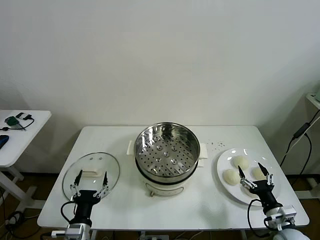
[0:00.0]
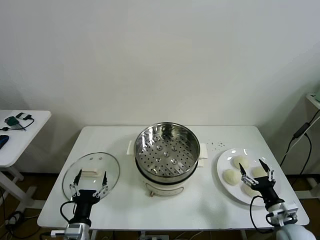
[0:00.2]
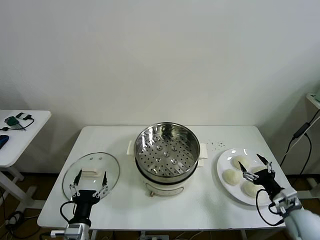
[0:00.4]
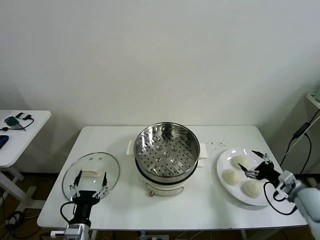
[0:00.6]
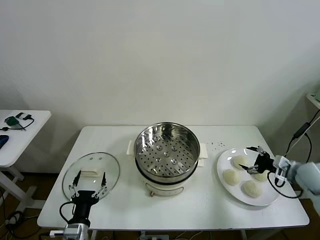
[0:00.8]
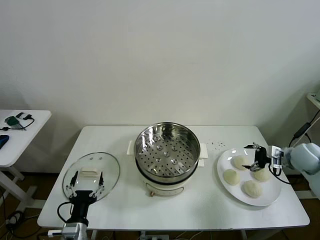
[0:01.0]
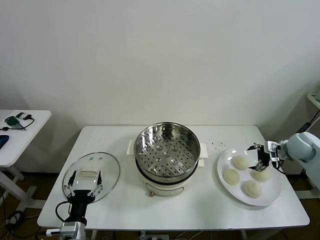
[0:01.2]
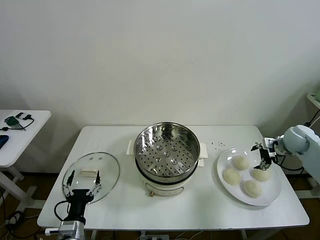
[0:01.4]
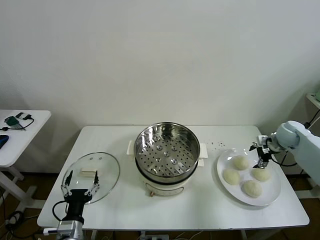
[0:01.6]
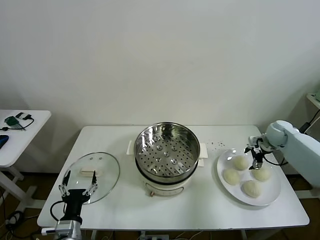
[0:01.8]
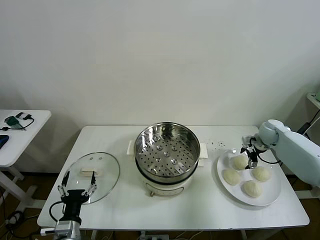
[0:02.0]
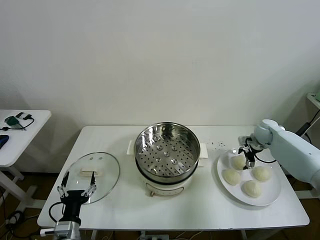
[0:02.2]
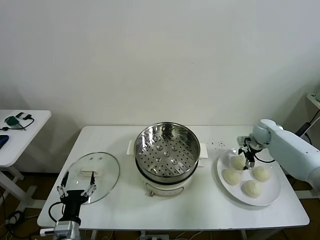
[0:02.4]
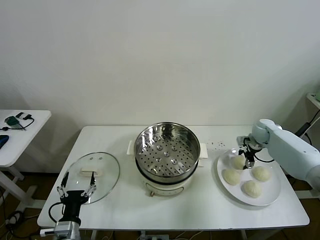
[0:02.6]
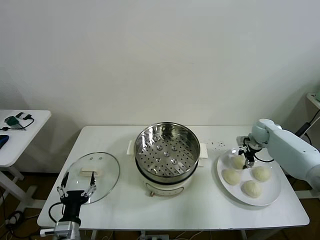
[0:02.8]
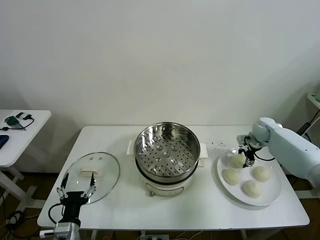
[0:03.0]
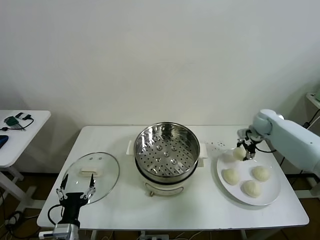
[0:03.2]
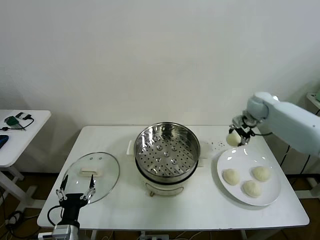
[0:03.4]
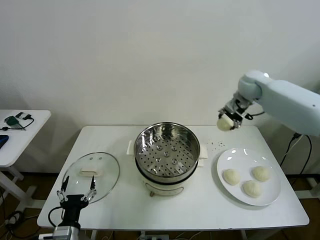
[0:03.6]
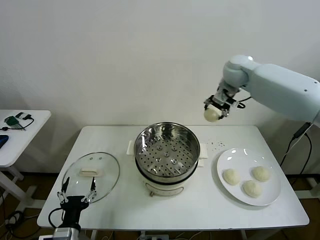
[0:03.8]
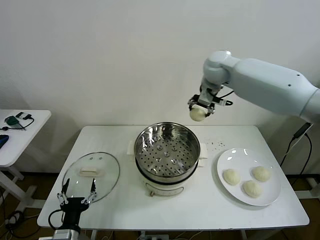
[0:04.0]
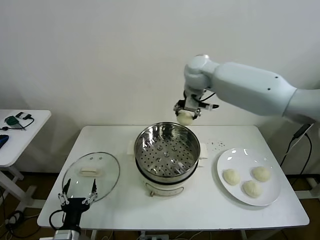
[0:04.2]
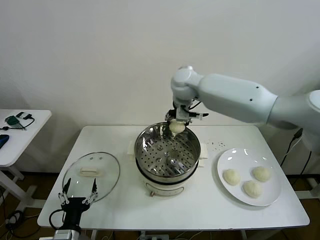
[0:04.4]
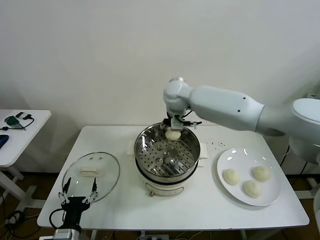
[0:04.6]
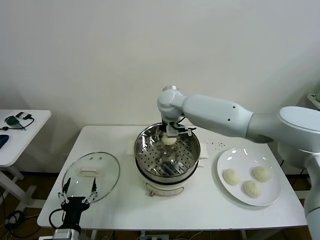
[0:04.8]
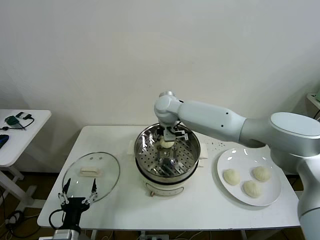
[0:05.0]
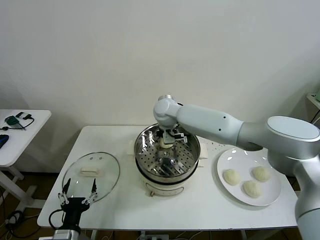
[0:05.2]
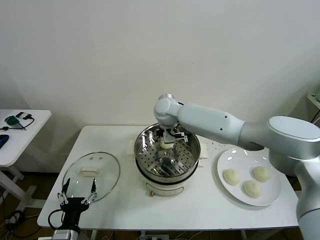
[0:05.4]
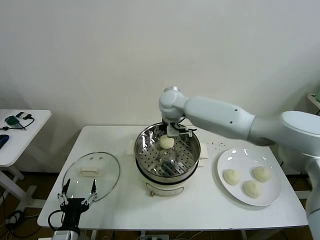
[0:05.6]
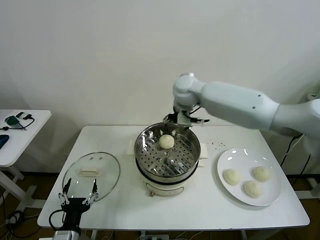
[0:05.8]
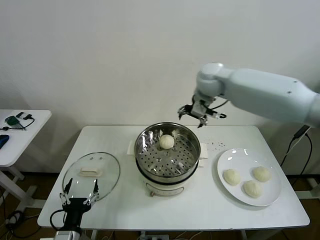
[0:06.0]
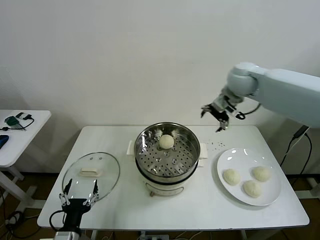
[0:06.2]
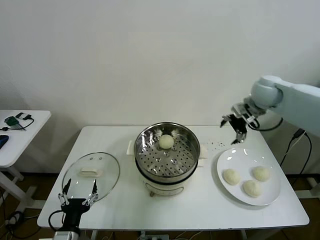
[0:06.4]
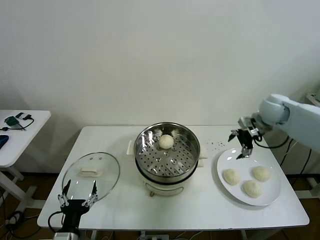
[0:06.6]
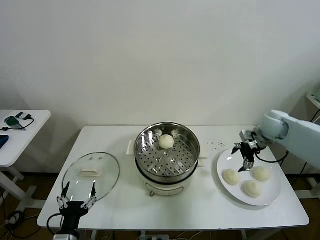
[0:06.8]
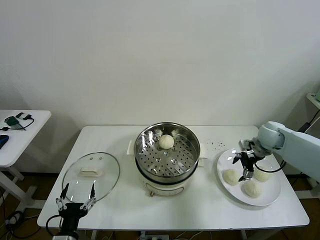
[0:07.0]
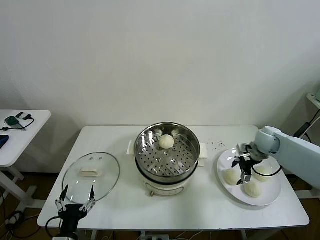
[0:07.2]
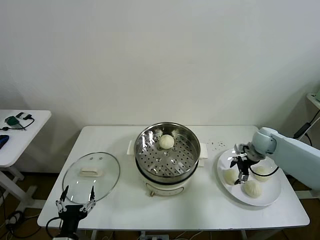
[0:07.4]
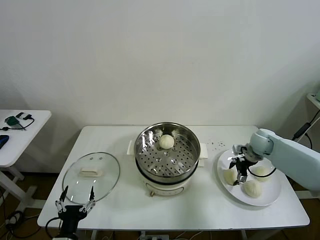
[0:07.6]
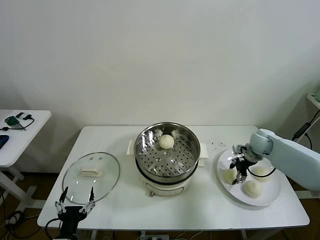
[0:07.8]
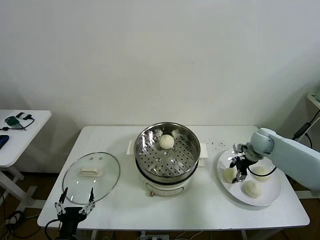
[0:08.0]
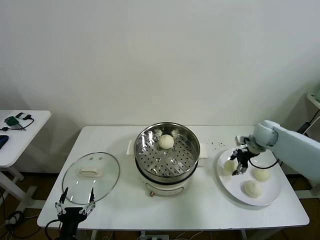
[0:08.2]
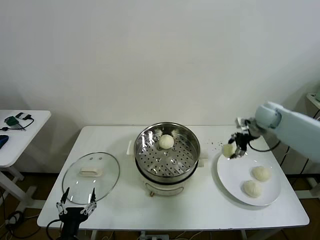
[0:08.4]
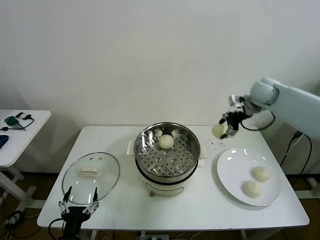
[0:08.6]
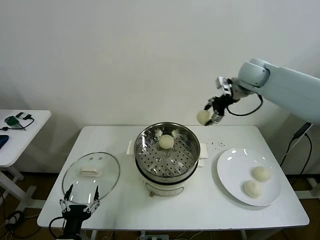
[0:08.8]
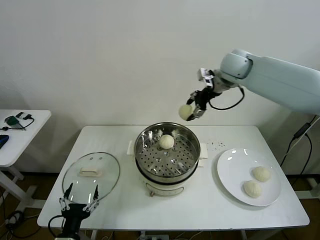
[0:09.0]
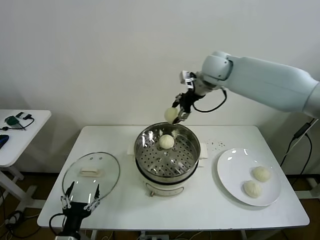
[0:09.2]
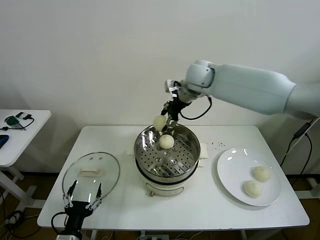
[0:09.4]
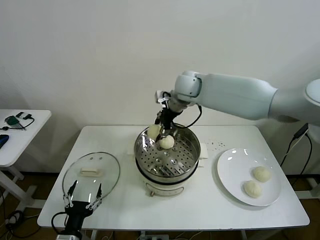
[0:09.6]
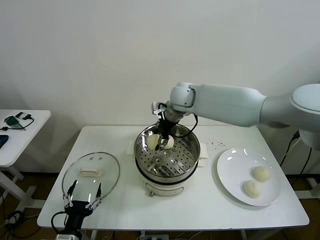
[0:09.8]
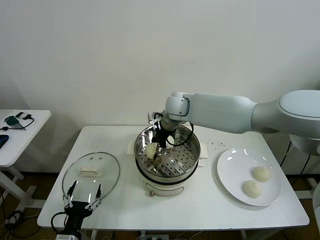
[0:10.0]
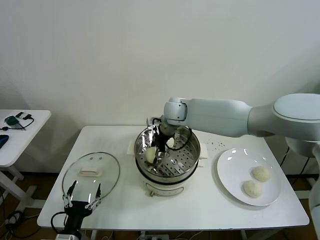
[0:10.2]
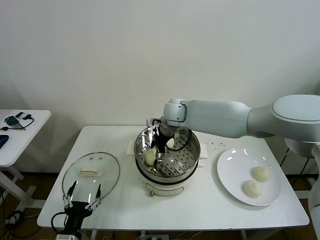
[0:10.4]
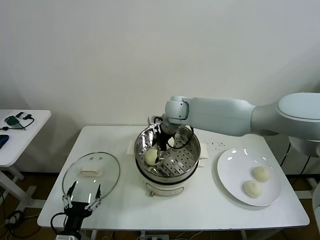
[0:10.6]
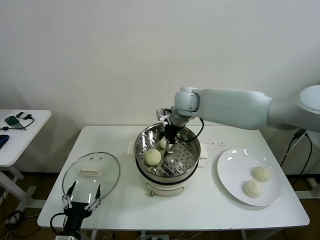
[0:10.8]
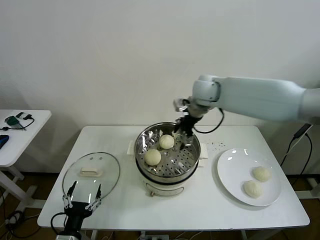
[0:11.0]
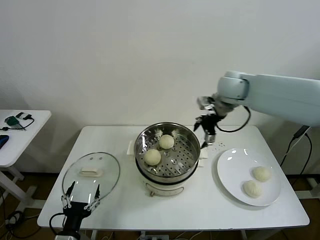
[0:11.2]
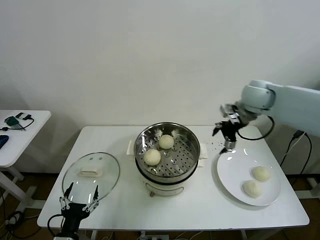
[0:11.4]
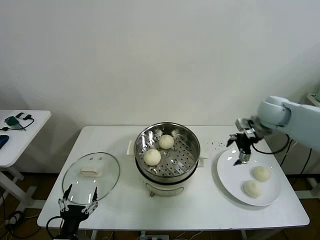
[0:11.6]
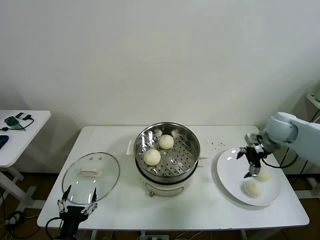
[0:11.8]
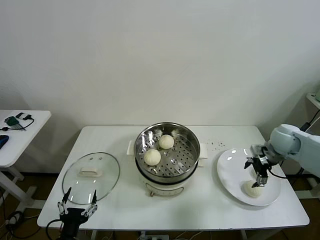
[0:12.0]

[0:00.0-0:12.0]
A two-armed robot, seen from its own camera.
Task of the whole recording: take steamed baozi put them in steamer then cover it.
Step, 0.0 to 2.6 s: Grasp the baozi in the plate with right gripper.
Step, 2.8 to 5.2 s: Place the baozi on the steamer with right gripper.
Step, 5.4 to 8.0 s: Grasp the baozi in the plate with right gripper.
Step, 8.2 to 10.6 s: Place the baozi on the steamer with right gripper.
1.6 to 3.0 s: The right gripper shifts by some 5 cm, and closes its fingers.
3.0 to 4.4 s: The right gripper travels to the left by approximately 35 cm.
4.4 to 6.0 s: The right gripper moves to the right, approximately 20 cm, and opens.
6.0 to 7.6 s: The right gripper moves downward and to the right, approximately 30 cm, and closes.
7.6 to 9.0 s: The right gripper heads upward and to the left, covering roughly 35 cm.
9.0 to 10.4 s: The right gripper travels downward and to the left by approximately 20 cm, and opens up.
10.4 to 12.0 s: The right gripper travels to the right by approximately 40 cm.

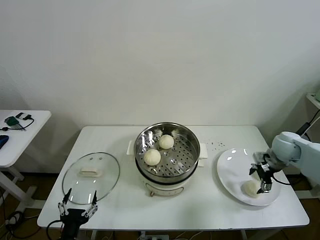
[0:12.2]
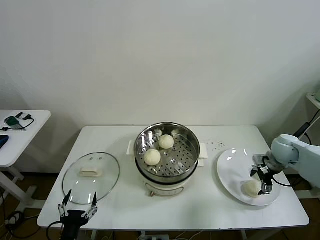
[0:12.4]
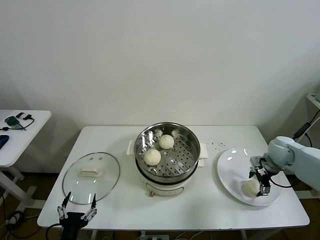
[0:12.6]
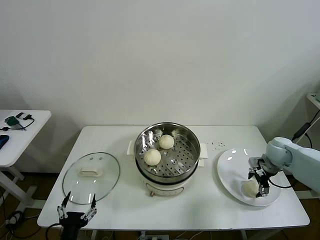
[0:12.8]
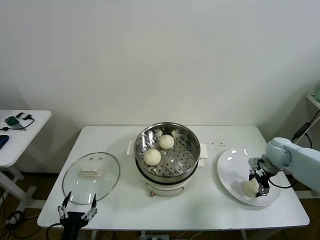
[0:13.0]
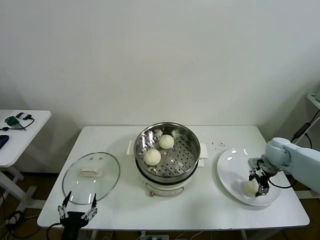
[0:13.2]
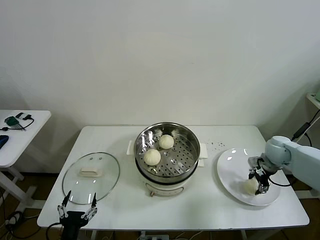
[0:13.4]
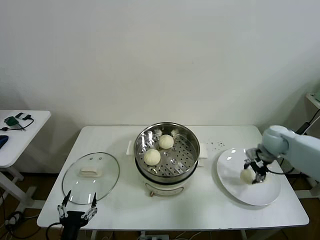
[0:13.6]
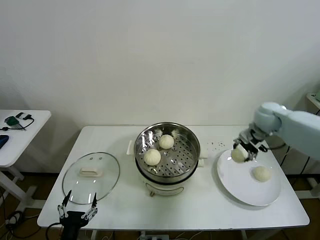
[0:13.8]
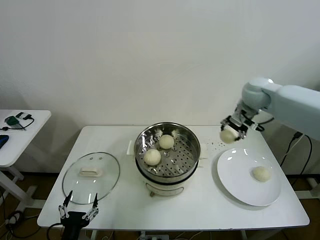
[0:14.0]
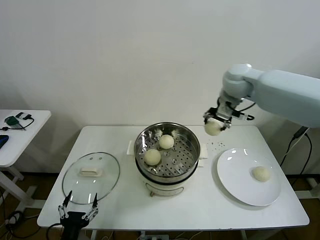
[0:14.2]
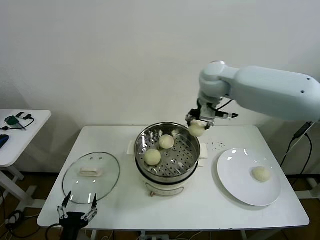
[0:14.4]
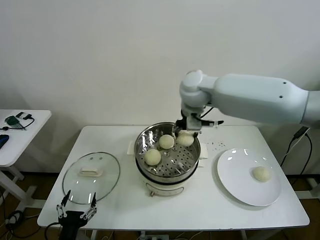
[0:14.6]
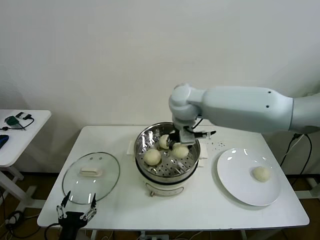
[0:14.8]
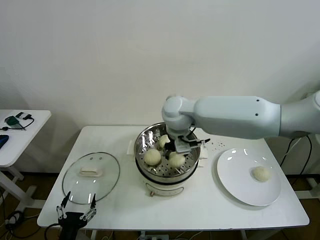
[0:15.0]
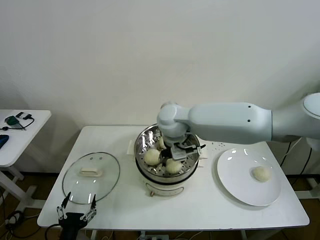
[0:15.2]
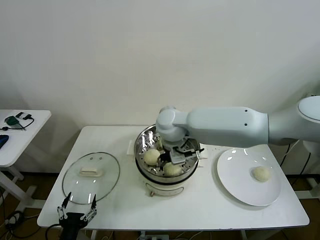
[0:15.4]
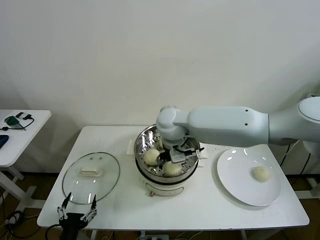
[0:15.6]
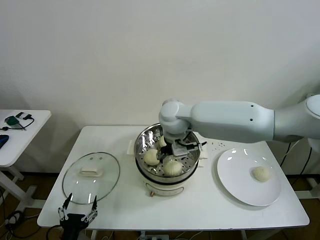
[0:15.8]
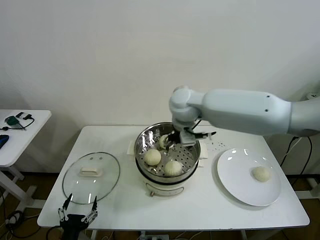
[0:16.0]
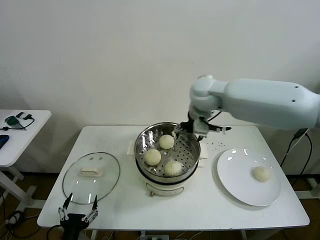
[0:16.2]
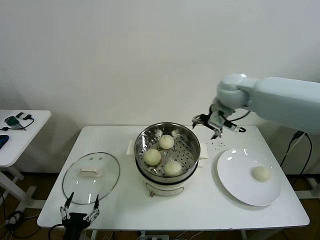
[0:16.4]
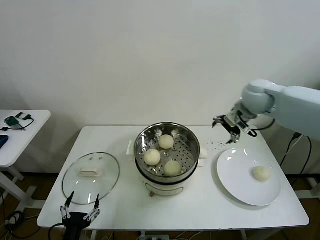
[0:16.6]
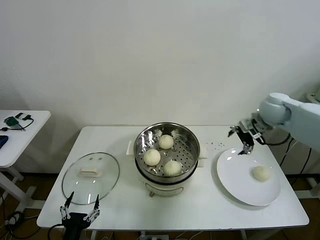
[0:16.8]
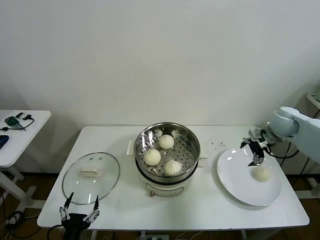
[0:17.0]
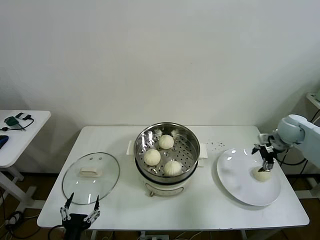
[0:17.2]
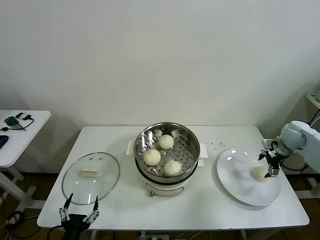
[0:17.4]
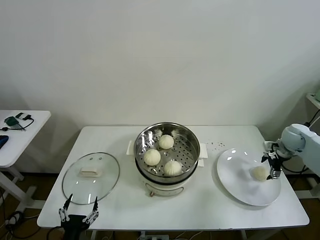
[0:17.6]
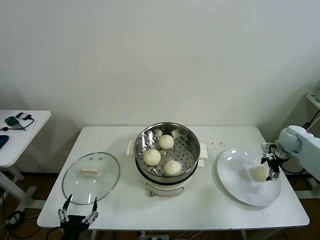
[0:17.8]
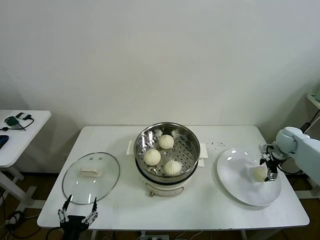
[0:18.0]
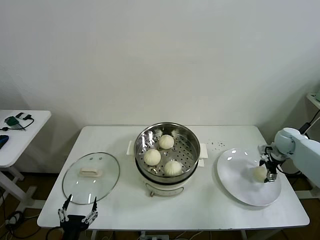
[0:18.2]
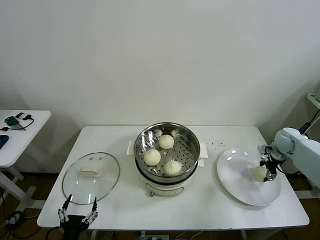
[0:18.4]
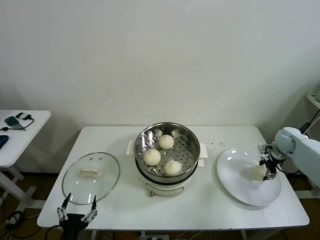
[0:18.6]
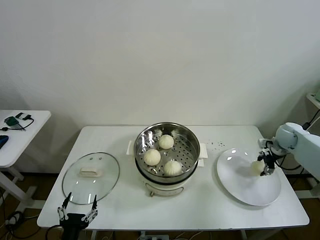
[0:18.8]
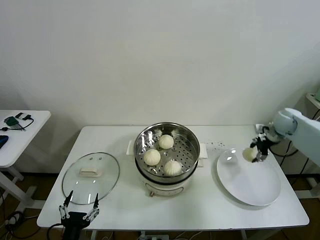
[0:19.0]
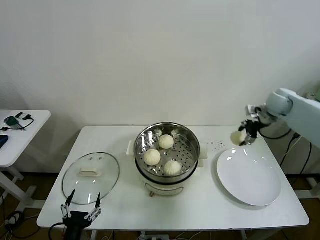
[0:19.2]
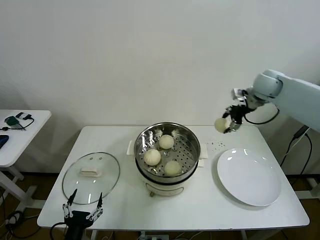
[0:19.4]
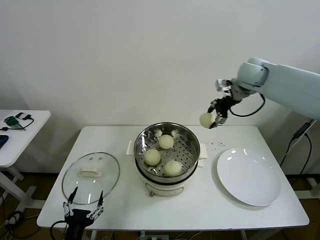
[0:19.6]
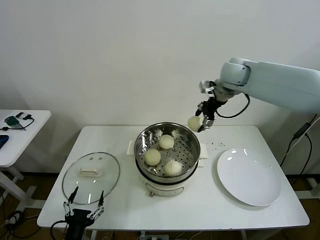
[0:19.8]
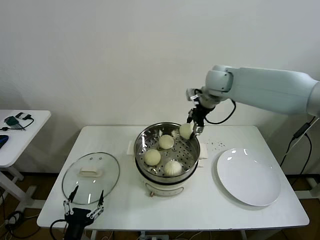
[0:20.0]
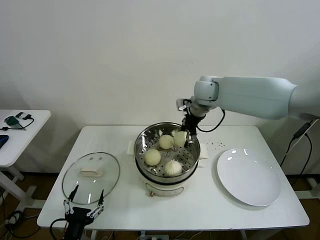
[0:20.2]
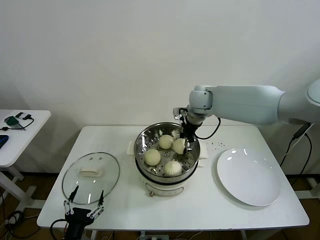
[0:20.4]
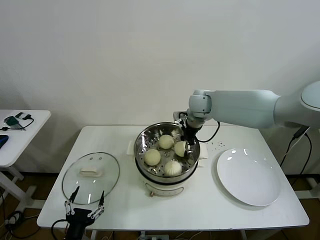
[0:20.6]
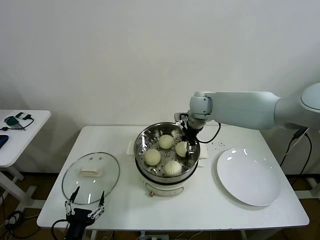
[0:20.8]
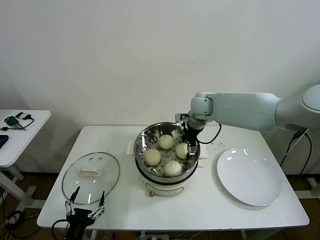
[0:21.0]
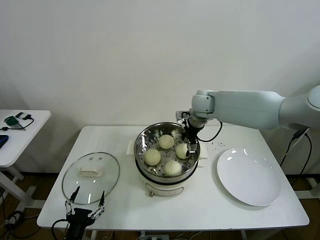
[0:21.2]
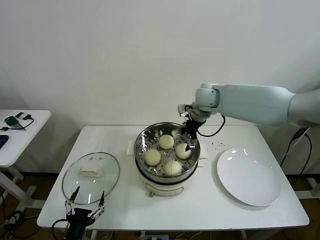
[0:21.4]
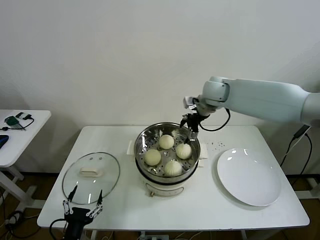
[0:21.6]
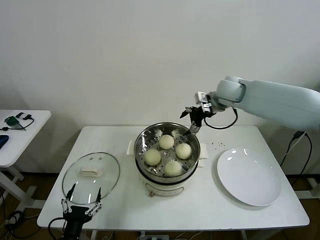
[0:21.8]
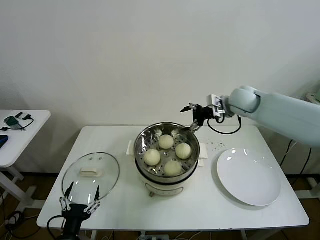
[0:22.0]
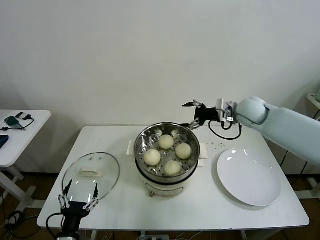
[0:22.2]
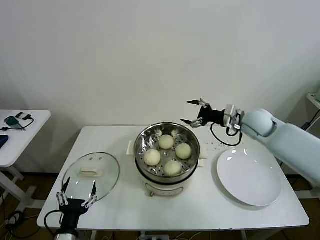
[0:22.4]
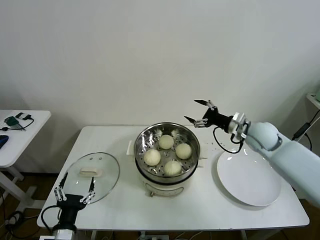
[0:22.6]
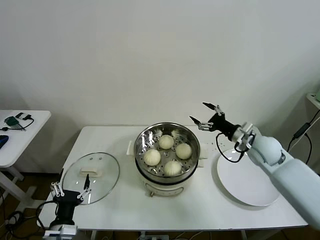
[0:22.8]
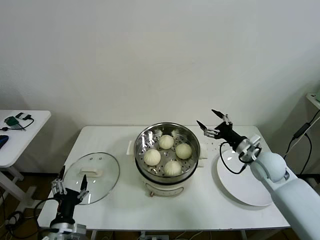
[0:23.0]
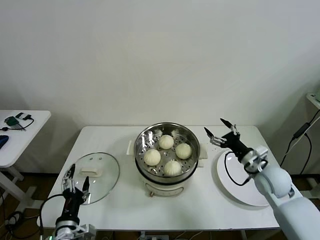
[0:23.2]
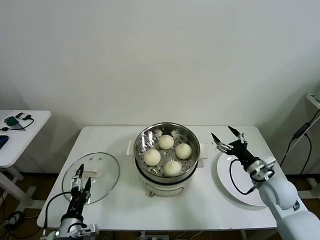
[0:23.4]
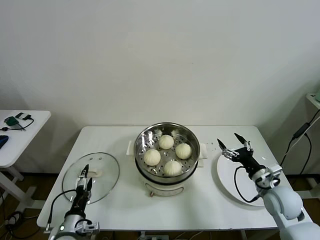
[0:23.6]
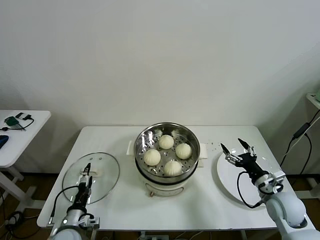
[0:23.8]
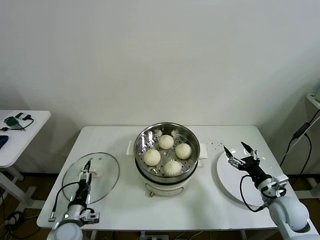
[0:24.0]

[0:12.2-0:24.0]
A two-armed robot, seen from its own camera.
Task of the whole recording: take steamed baozi put them in steamer then cover it.
Step, 13.6 to 15.4 s: Place the baozi on the steamer with right gripper.
Step, 15.6 to 18.6 s: Grasp the baozi in the plate with right gripper.
Step, 18.8 to 21.2 s: Place the baozi on the steamer with right gripper.
12.2 to 13.6 s: The right gripper travels upward, forward and to the left by some 10 cm, and closes up.
13.6 to 15.2 s: The right gripper is displaced to the left by some 35 cm.
15.2 to 16.6 s: The right gripper shifts some 30 cm to the right, and opens up.
16.6 to 18.2 s: The right gripper travels downward and to the right by about 25 cm.
18.2 to 19.6 s: The right gripper travels upward and to the left by about 35 cm, and closes up.
19.6 to 21.0 s: The right gripper shifts some 15 cm to the left and downward, and opens up.
21.0 to 22.6 s: The right gripper shifts some 20 cm to the right and backward.
22.6 to 24.0 s: The left gripper heads forward and downward, covering approximately 15 cm; the right gripper goes about 25 cm backward and downward.
